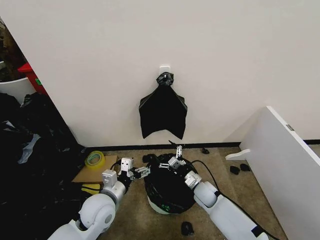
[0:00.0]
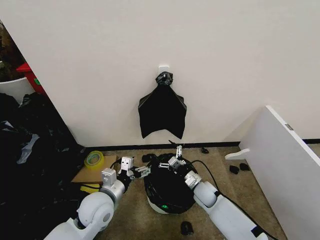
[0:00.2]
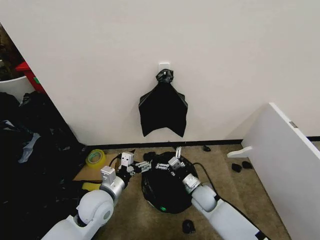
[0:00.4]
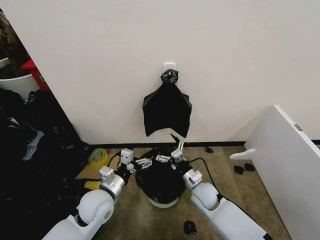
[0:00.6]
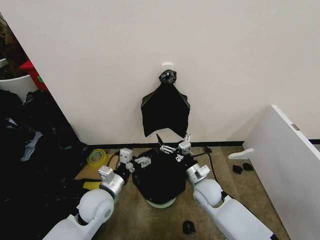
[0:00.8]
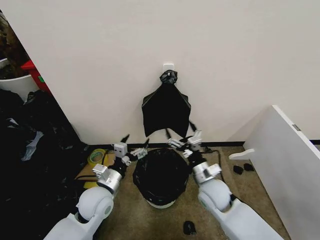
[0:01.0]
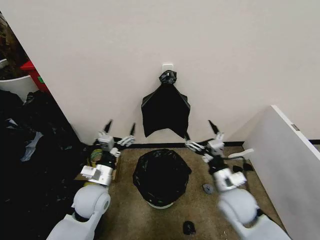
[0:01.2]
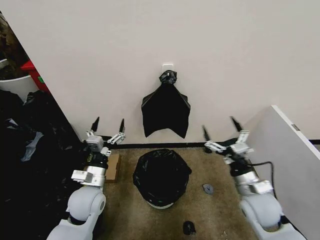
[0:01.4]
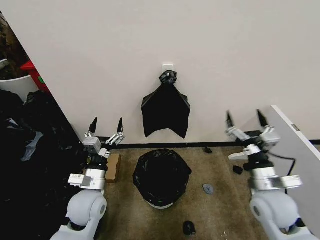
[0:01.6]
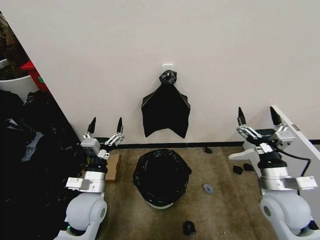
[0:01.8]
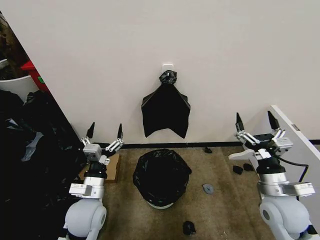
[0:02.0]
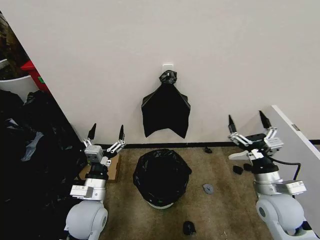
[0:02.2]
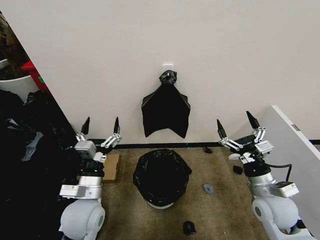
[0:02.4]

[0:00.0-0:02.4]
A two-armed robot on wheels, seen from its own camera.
Task of the whole recording: Place the garbage bag over the trash bin.
0:00.0 to 0:01.2: The right gripper moves upward and backward, some 20 cm.
0:01.2 to 0:02.4: The right gripper heads to the right, covering approximately 10 cm. The left gripper heads backward, covering approximately 5 cm.
